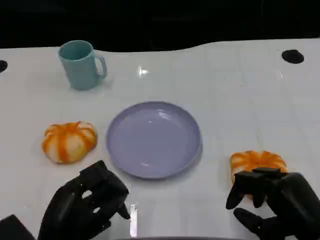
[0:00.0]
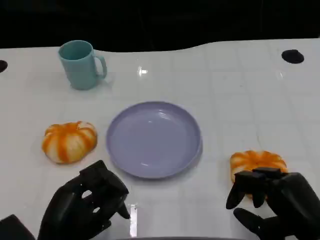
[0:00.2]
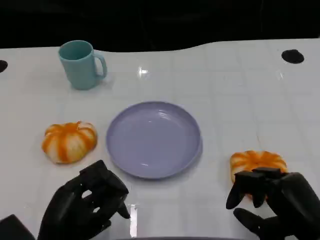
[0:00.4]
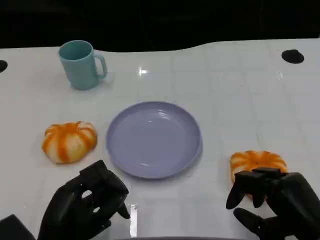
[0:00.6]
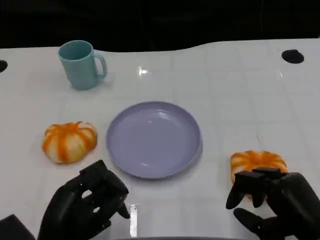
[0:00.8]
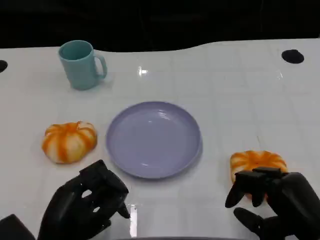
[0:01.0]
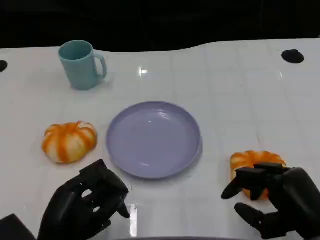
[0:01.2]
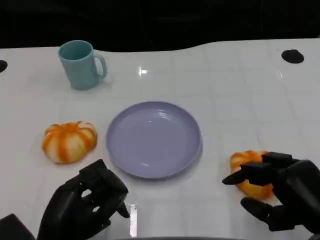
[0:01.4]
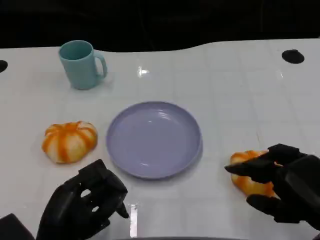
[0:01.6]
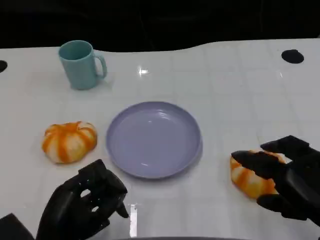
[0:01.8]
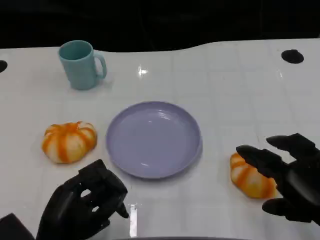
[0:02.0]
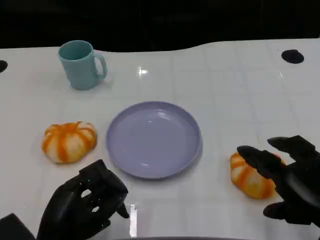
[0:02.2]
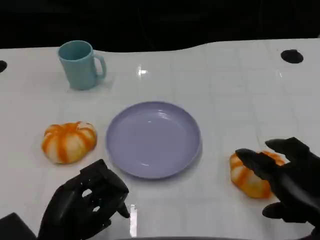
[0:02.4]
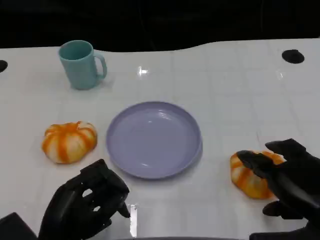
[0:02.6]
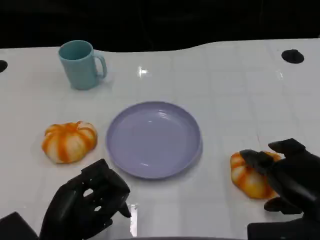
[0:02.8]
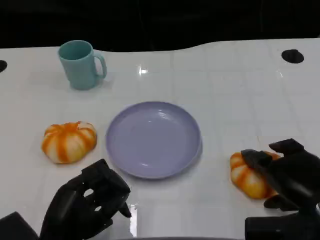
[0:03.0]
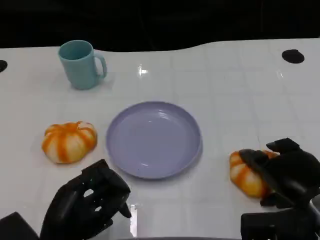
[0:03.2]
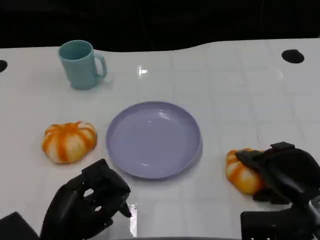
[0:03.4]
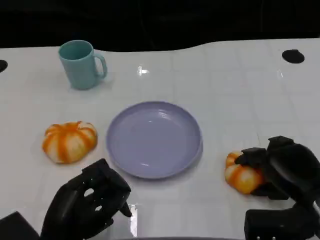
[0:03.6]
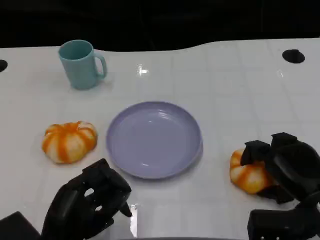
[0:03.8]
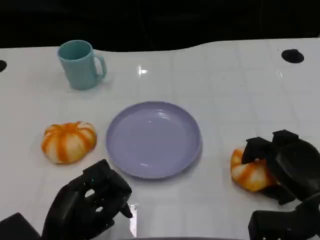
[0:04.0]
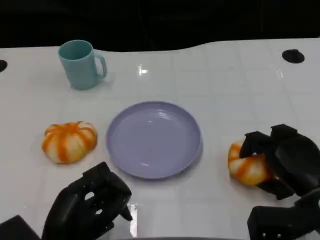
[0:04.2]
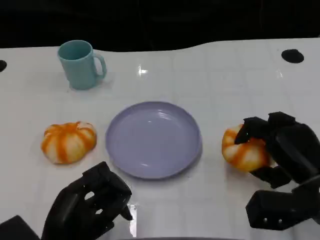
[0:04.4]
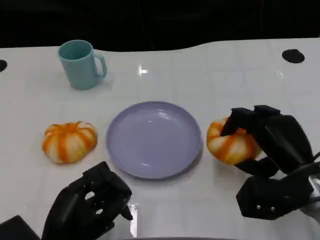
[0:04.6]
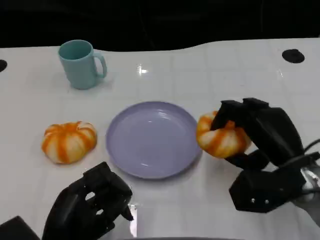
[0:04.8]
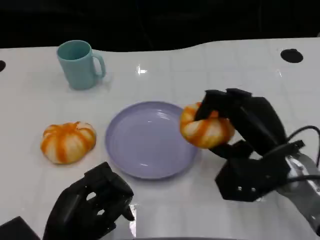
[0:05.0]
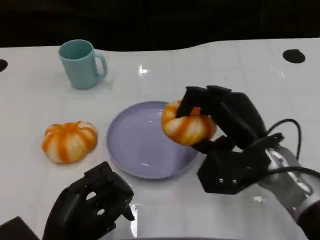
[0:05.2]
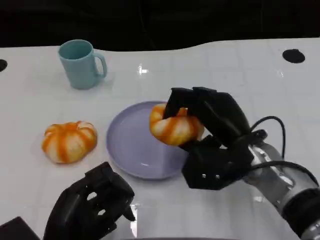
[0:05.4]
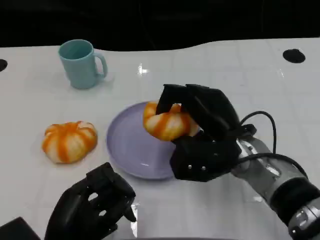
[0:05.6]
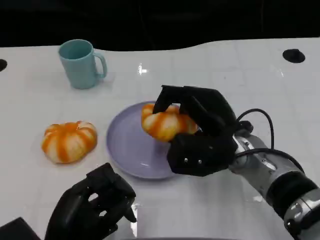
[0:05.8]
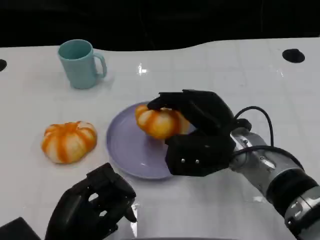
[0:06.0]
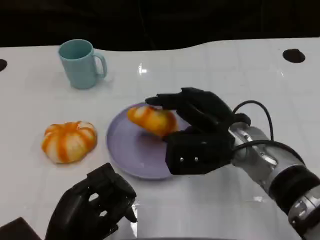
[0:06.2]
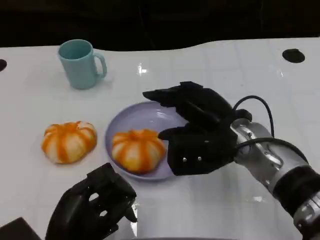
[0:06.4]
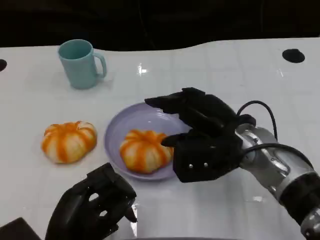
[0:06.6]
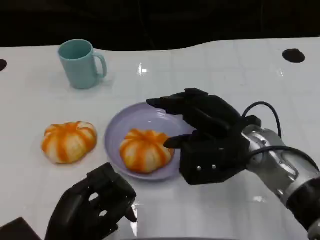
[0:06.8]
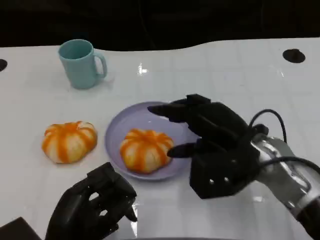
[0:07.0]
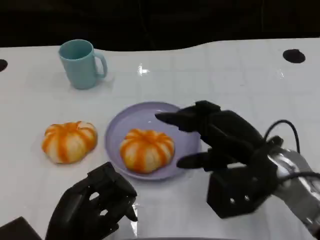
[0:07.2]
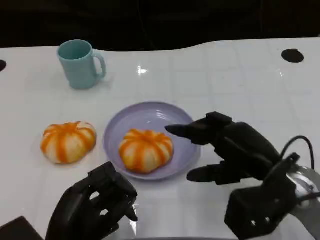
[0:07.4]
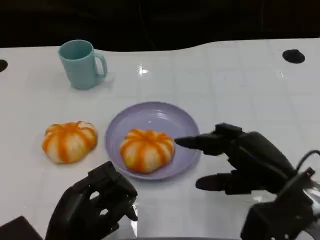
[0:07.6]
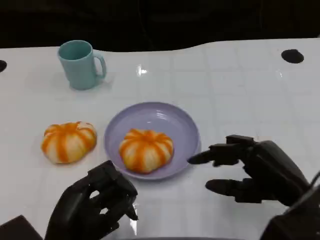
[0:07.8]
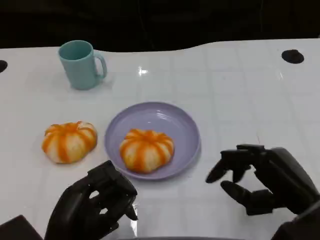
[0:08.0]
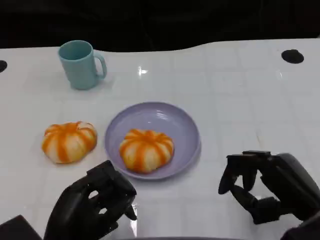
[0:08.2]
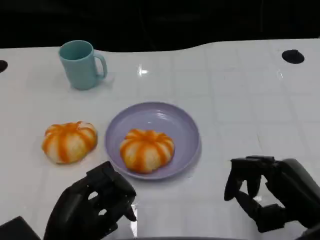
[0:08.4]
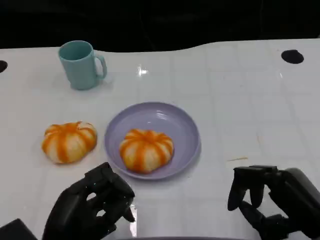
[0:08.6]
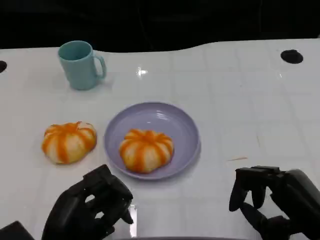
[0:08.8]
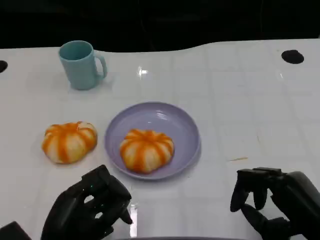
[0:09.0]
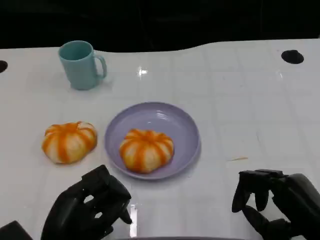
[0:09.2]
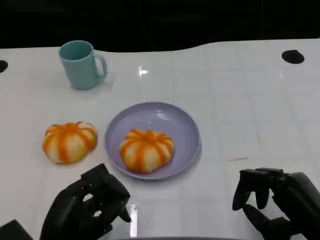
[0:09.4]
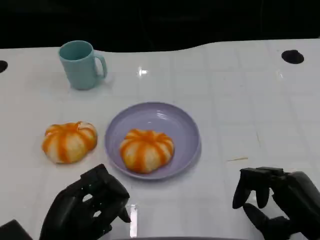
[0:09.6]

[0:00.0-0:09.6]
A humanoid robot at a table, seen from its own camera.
Task of the whole recording: Grasp the bread from the table and place it into the plate.
0:01.6 to 0:03.2: The right hand goes some 5 cm forward.
0:03.2 to 0:04.8: The right hand changes place by about 5 cm.
0:04.8 to 0:06.4: The right hand goes about 10 cm to the left.
0:06.4 to 0:08.0: The right hand heads to the right and backward, covering about 15 cm.
0:08.0 to 0:09.6: The hands move only a little.

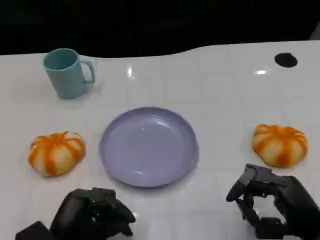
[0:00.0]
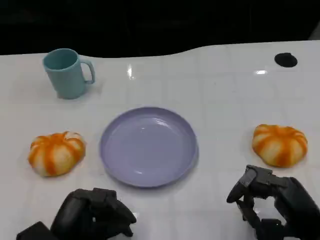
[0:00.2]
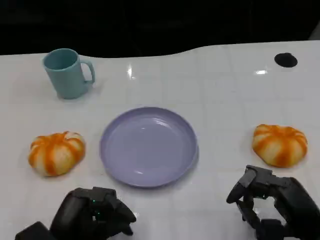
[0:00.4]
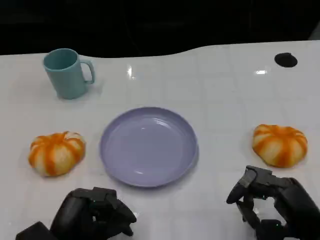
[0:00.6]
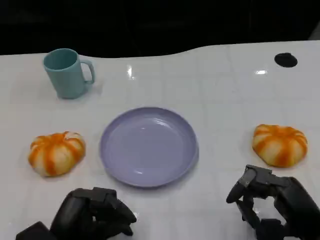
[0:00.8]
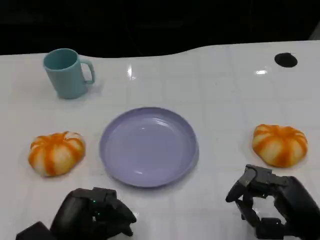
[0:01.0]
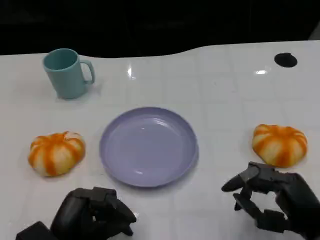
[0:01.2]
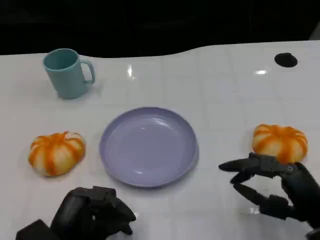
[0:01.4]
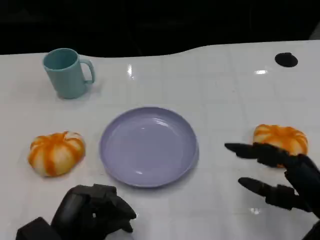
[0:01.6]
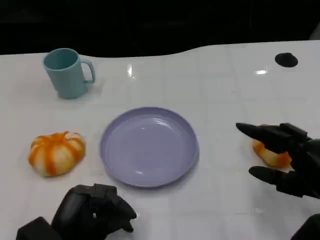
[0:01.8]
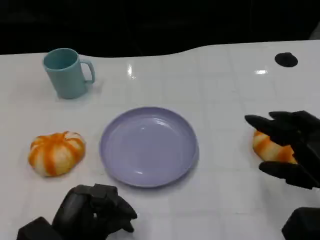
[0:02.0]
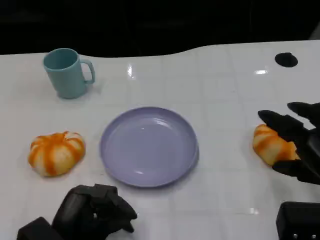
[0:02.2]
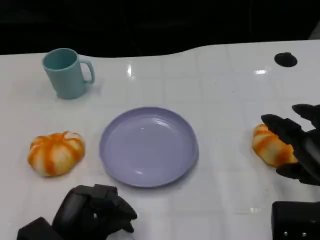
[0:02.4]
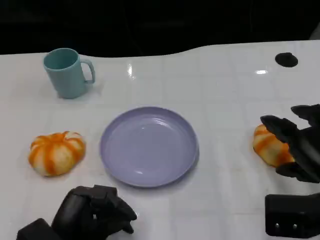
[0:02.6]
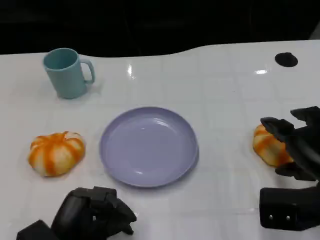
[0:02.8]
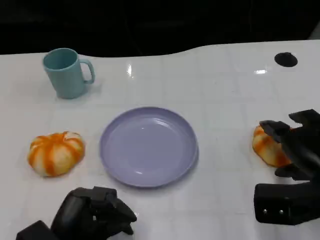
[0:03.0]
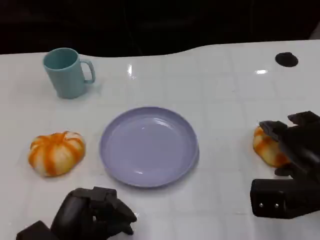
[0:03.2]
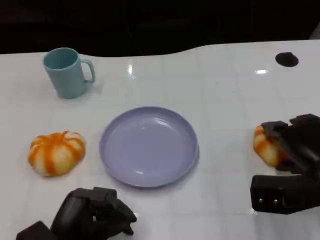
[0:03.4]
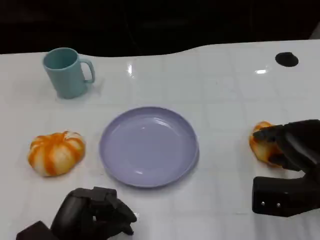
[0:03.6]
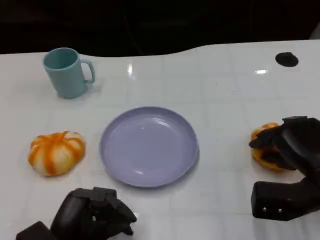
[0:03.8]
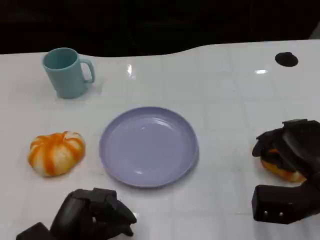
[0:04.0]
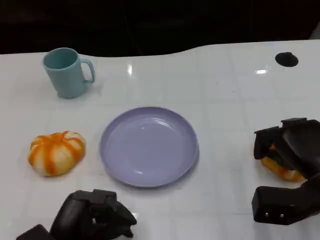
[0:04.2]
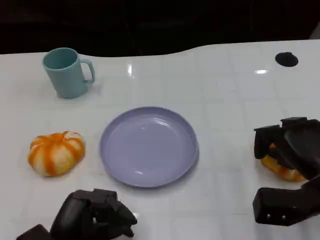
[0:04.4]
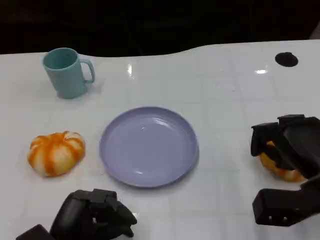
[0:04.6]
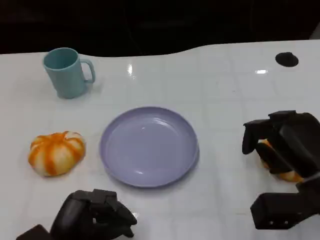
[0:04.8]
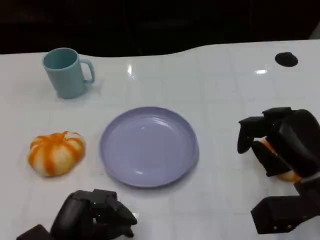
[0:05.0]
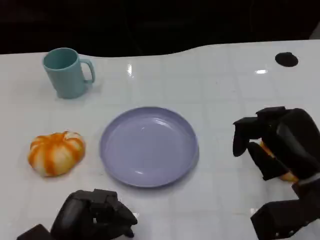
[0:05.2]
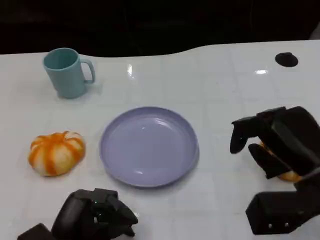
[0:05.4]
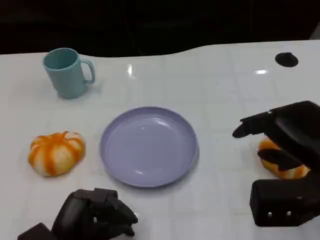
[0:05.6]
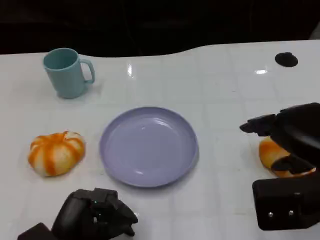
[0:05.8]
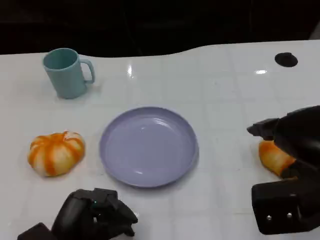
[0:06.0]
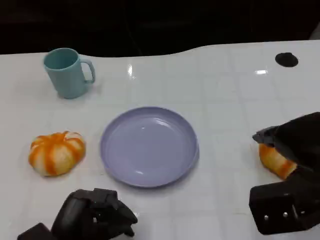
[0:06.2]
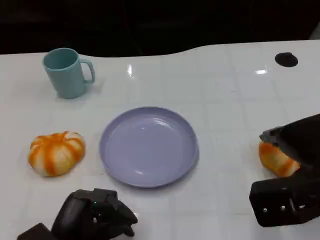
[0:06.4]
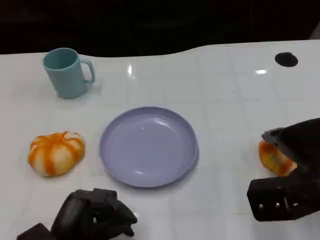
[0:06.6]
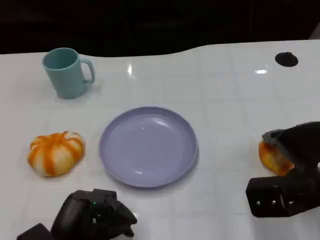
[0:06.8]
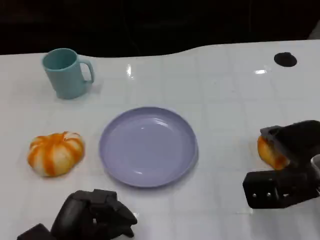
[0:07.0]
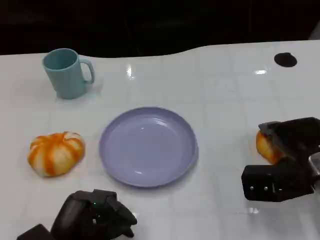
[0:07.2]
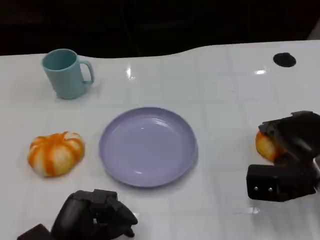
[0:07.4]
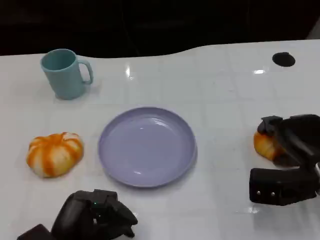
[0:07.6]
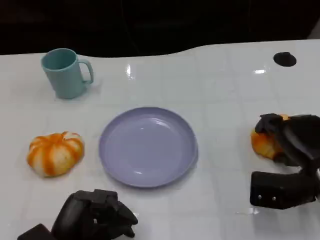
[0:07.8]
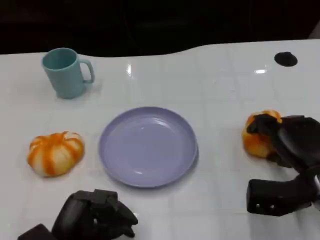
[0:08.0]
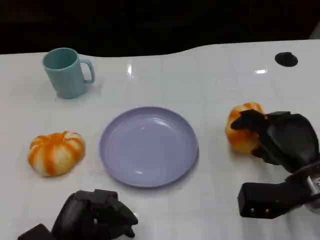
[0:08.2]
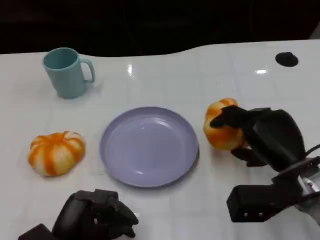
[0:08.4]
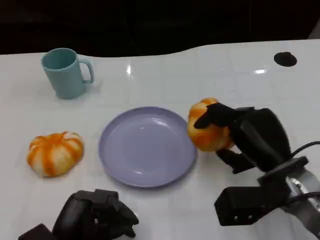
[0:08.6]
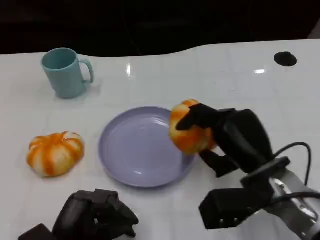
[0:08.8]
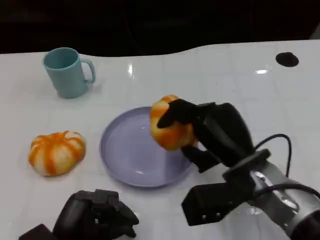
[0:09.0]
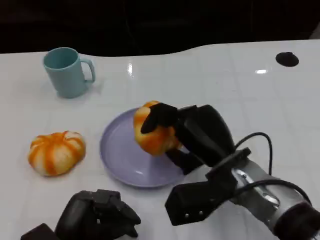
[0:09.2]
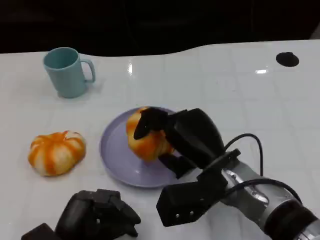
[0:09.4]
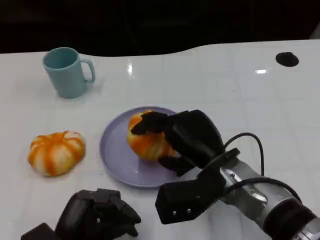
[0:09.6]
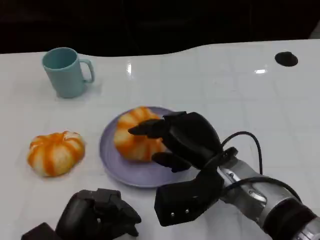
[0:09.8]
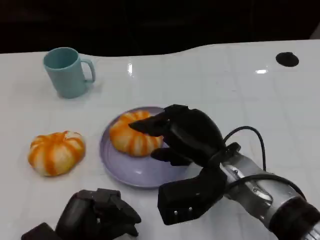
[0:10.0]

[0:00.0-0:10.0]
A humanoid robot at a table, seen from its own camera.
Task of the whole recording: Grasp the bread from the table and place it into the plate.
0:00.0 to 0:01.4: There are only small adjustments of the hands.
0:01.4 to 0:02.8: The right hand ends up some 5 cm from where it was.
0:04.2 to 0:05.8: The right hand moves upward, about 10 cm.
0:05.8 to 0:07.2: The right hand travels downward and forward by about 15 cm.
0:07.2 to 0:08.6: The right hand heads to the left, covering some 5 cm.
0:08.6 to 0:10.0: The right hand travels to the left by about 10 cm.

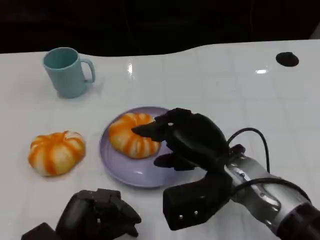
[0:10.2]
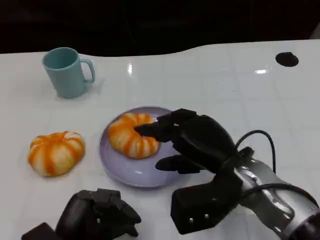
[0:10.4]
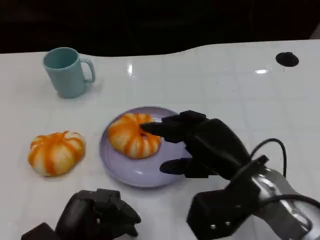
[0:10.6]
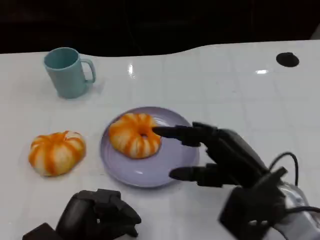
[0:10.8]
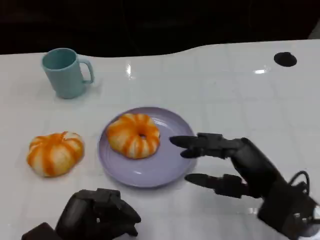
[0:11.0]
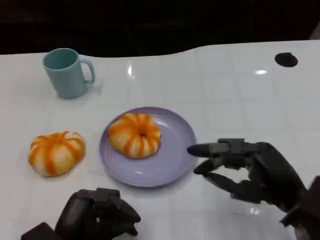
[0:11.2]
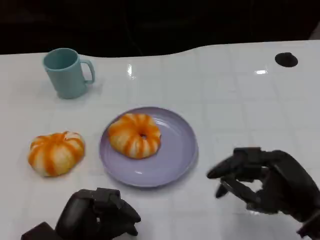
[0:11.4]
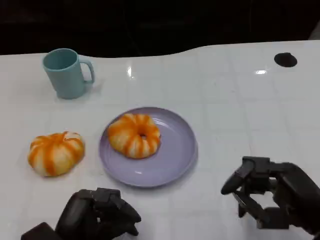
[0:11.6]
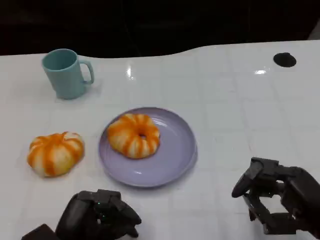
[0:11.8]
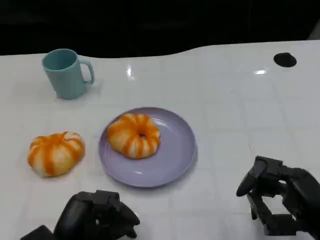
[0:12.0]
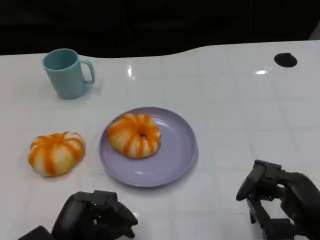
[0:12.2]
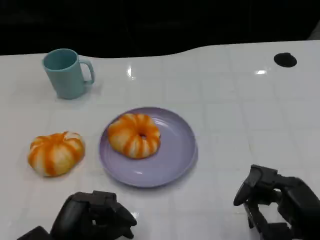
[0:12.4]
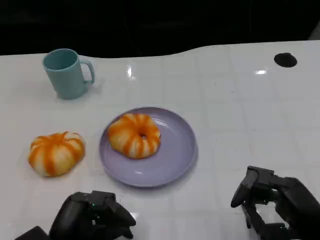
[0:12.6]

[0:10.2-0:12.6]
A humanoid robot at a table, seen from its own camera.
Task of the whole recording: Grasp the bread from the table and place it into the plate.
0:10.2 to 0:11.4: The right hand is displaced to the right and backward by some 15 cm.
0:11.4 to 0:12.6: The hands move only a little.
